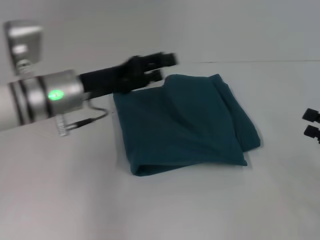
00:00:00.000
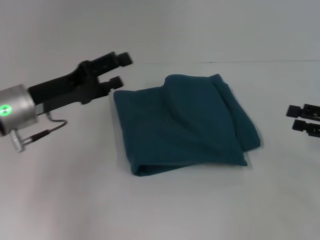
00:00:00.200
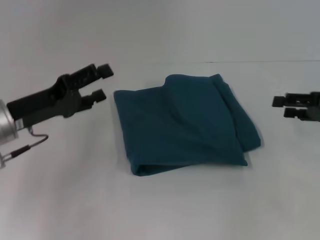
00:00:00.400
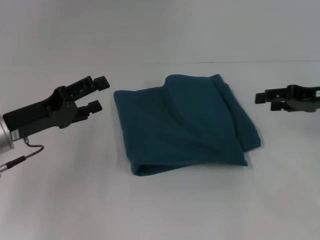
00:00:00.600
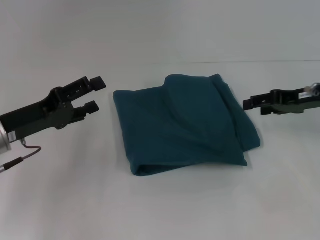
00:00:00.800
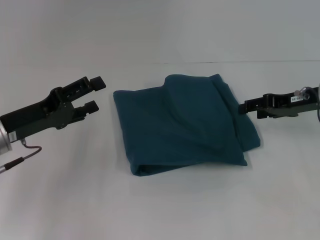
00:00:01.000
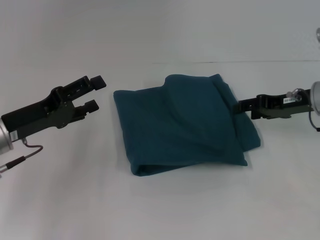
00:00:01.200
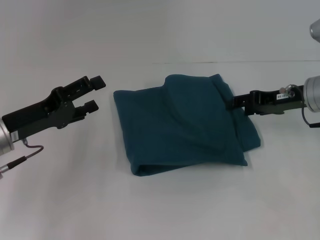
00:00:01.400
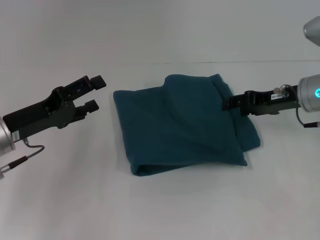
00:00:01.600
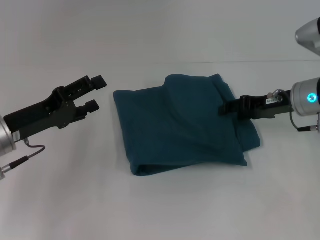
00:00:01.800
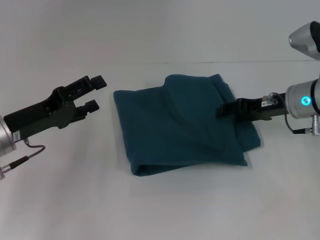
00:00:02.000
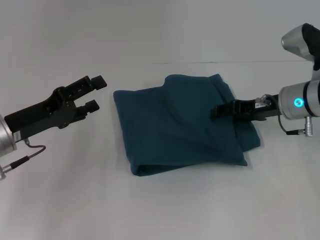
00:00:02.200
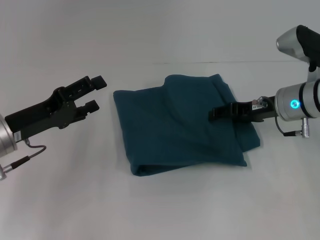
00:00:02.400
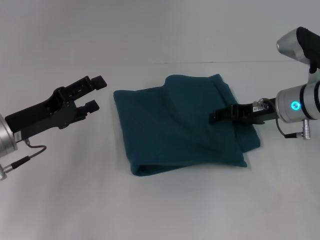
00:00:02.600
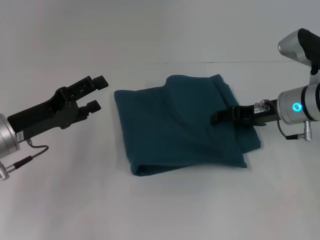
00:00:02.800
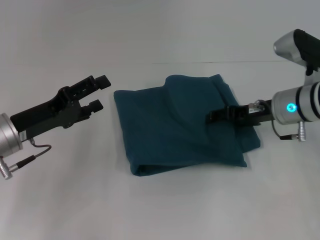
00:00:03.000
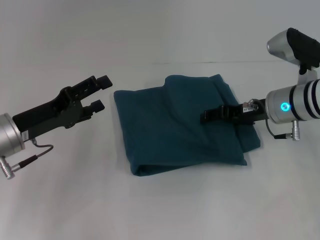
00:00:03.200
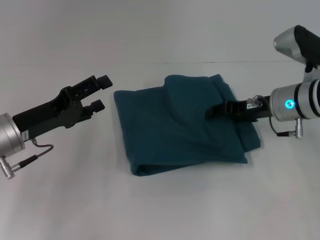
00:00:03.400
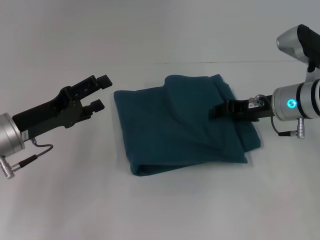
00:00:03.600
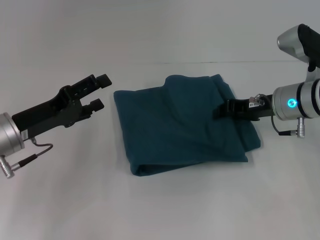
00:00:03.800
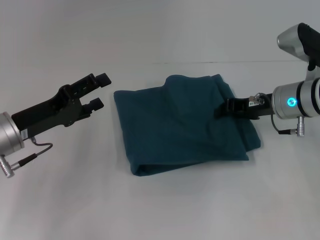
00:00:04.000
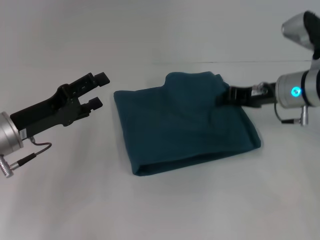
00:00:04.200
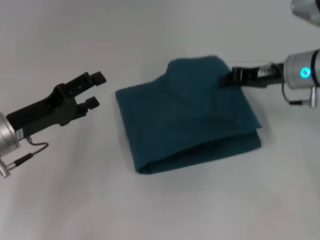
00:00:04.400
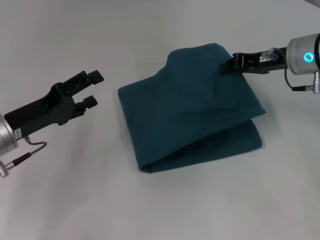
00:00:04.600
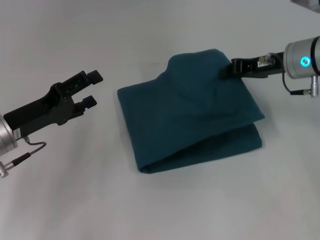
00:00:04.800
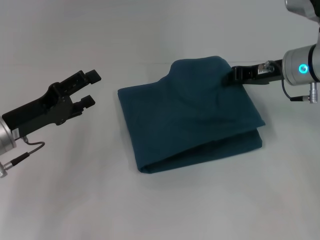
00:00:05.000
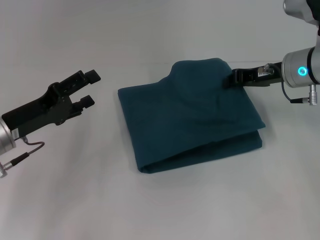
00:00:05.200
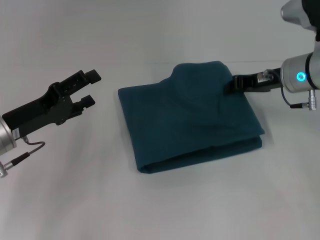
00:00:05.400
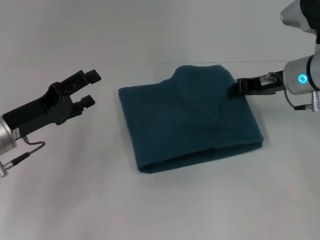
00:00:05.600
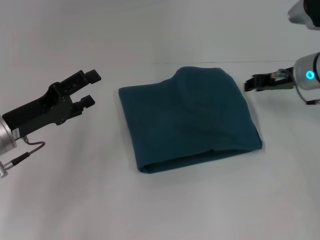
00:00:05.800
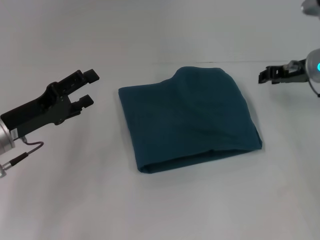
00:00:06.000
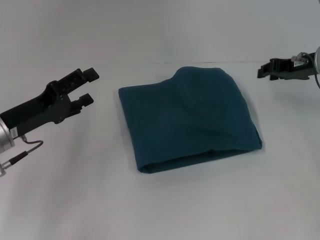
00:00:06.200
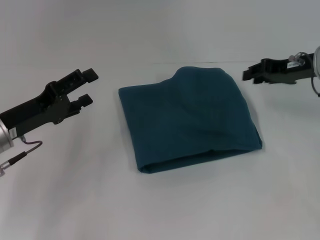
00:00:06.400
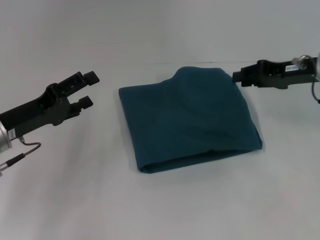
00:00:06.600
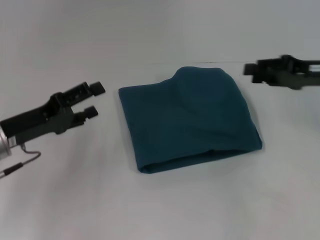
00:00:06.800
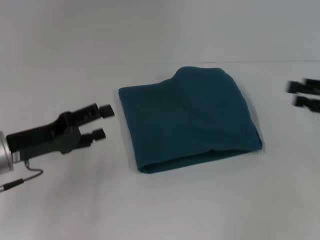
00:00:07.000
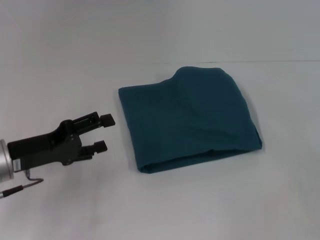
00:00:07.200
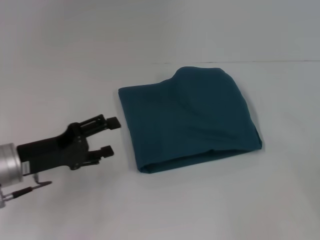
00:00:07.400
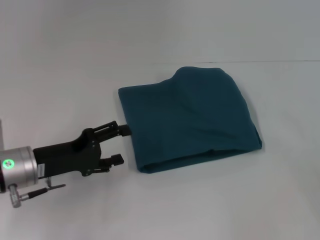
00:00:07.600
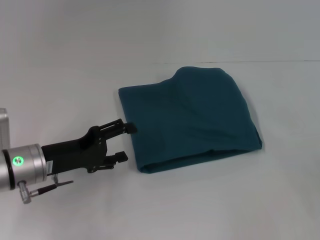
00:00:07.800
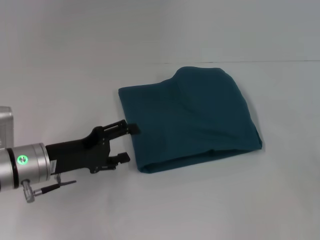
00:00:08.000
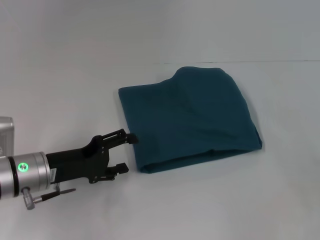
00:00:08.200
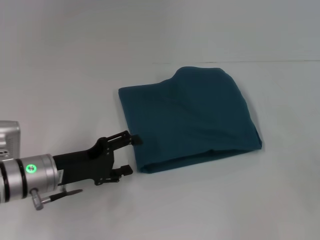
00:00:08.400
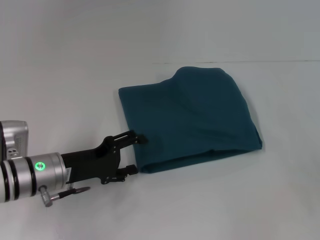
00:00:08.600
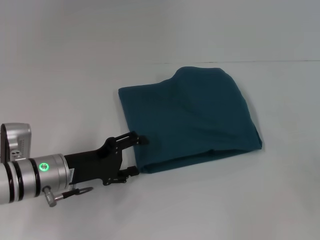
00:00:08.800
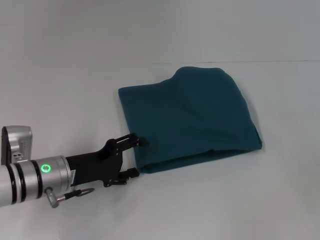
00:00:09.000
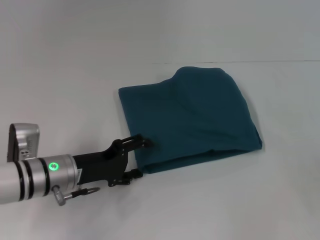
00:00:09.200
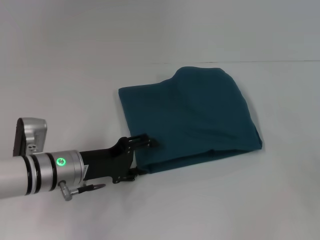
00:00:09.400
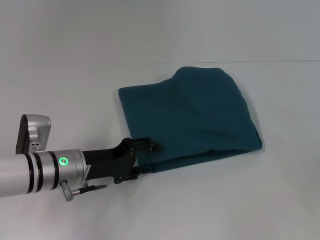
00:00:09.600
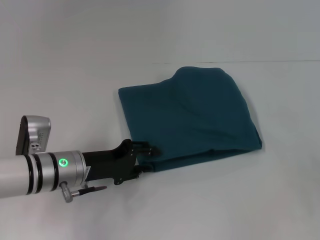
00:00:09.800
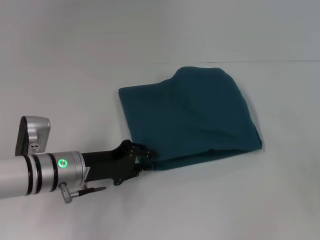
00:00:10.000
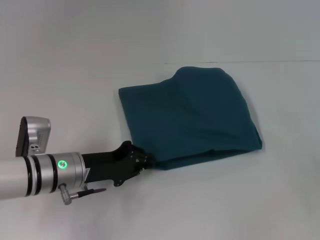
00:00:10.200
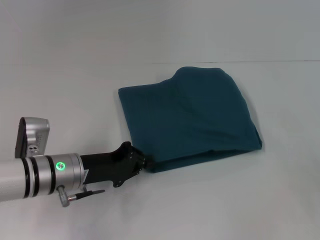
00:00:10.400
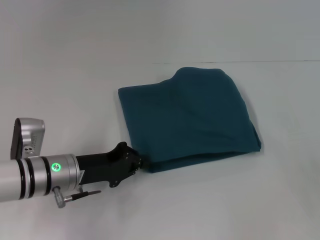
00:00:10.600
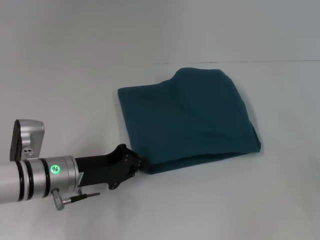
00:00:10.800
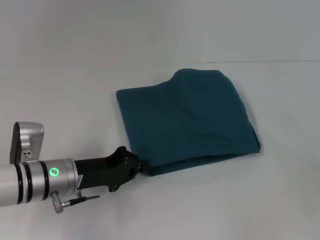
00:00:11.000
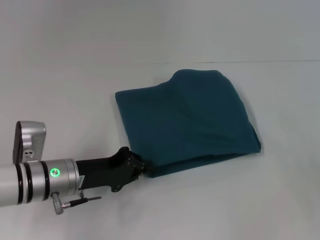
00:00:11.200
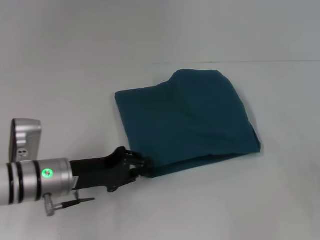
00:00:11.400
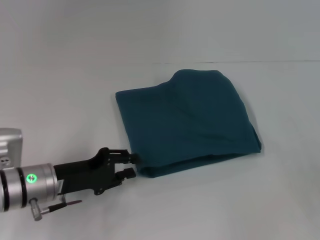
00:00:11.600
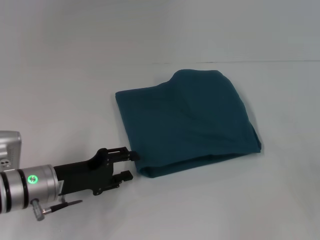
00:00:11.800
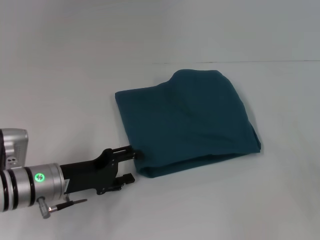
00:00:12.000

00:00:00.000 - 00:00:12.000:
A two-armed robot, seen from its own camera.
00:00:00.000 - 00:00:01.600: The right gripper moves forward and to the left, about 20 cm. Meanwhile the left gripper heads to the left and backward, covering roughly 10 cm, and opens its fingers.
00:00:01.600 - 00:00:03.000: The grippers move only a little.
00:00:03.000 - 00:00:04.400: The right gripper travels upward by roughly 5 cm, and closes.
00:00:06.000 - 00:00:07.600: The right gripper is displaced backward and to the right by about 25 cm, and opens its fingers.
00:00:07.600 - 00:00:09.000: The left gripper ends up roughly 5 cm from where it was.
00:00:09.000 - 00:00:10.400: The left gripper closes up.
00:00:10.400 - 00:00:12.000: The left gripper opens.

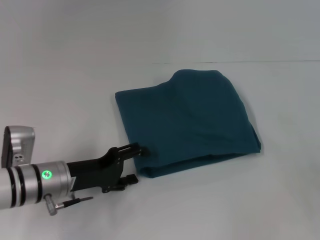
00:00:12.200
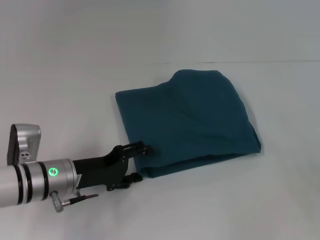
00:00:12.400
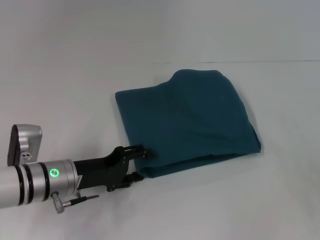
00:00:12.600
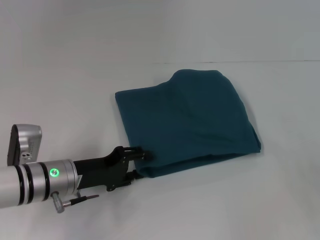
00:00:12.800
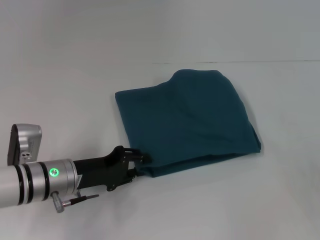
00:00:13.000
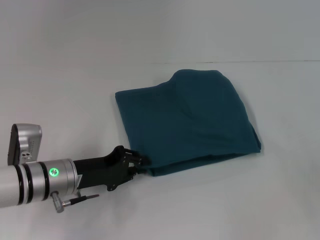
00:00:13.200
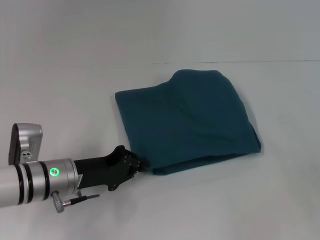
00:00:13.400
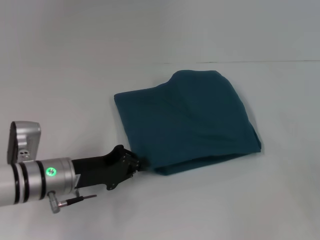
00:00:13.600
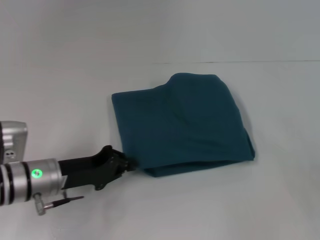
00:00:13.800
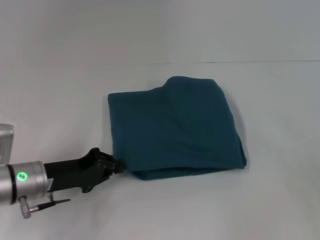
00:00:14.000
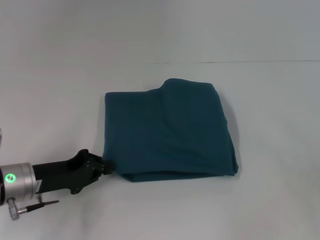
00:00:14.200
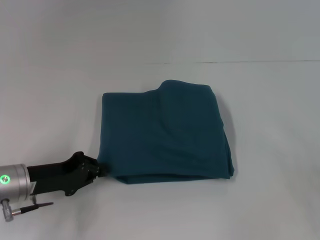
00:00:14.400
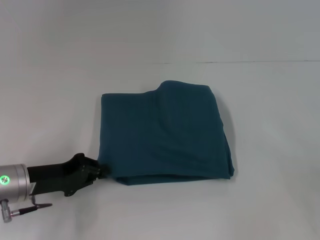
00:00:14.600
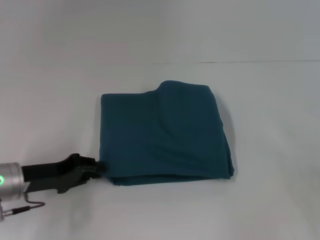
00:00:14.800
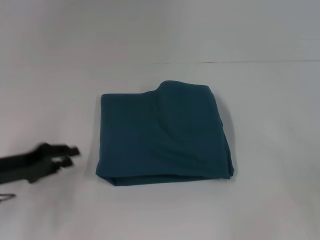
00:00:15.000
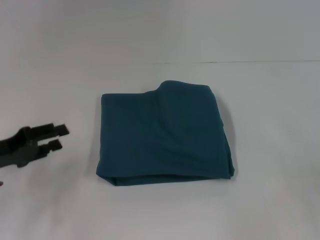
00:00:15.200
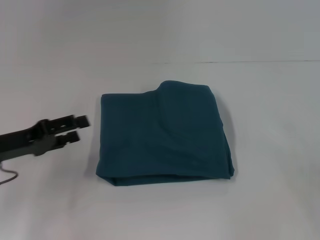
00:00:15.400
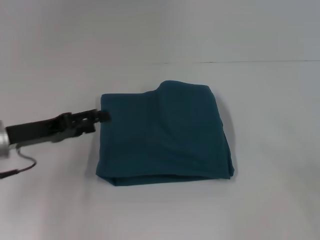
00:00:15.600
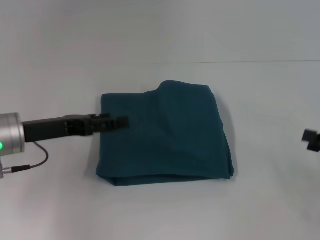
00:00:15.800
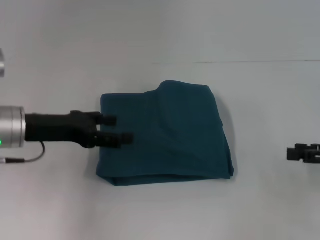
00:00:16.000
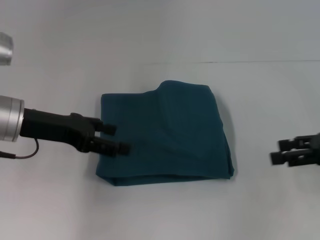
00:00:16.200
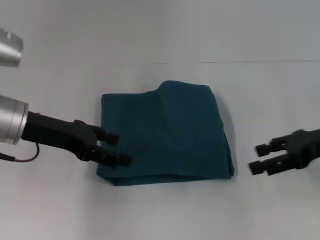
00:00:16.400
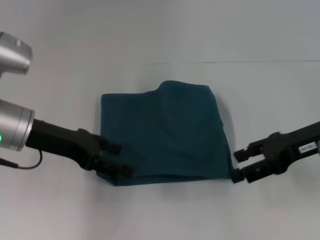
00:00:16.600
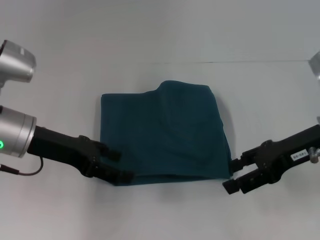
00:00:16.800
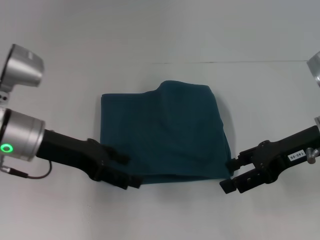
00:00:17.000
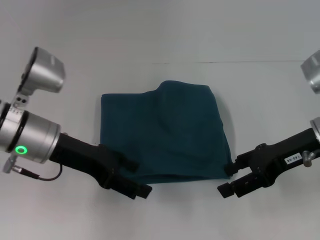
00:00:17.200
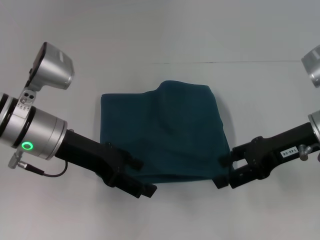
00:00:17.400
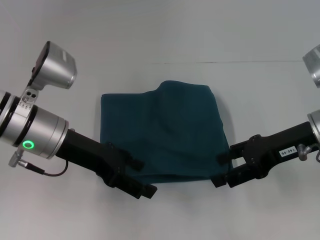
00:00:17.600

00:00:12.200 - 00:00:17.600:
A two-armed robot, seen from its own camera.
00:00:12.200 - 00:00:13.600: The left gripper closes its fingers.
00:00:13.600 - 00:00:15.000: The left gripper moves to the left, approximately 10 cm.
00:00:15.000 - 00:00:16.200: The left gripper heads upward, to the right and forward, covering some 10 cm, and opens; the right gripper travels forward and to the left by some 10 cm.
00:00:16.200 - 00:00:17.600: The left gripper travels to the right by about 5 cm; the right gripper goes about 10 cm to the left.
